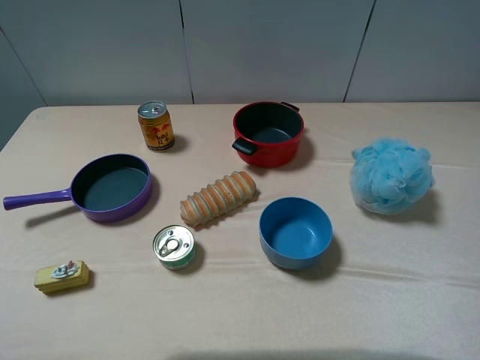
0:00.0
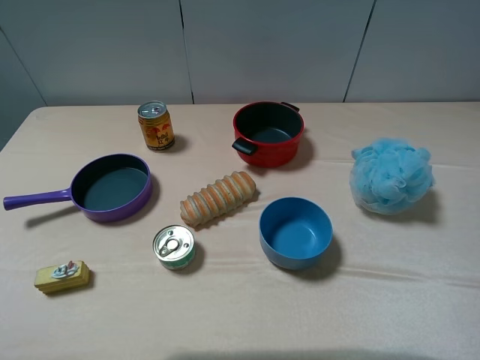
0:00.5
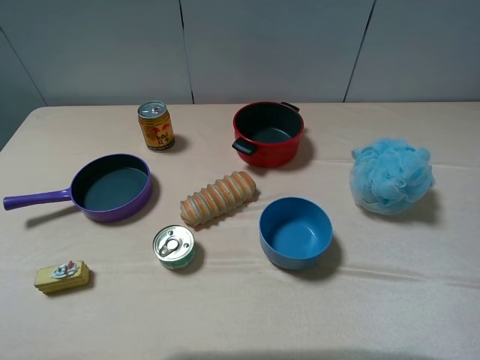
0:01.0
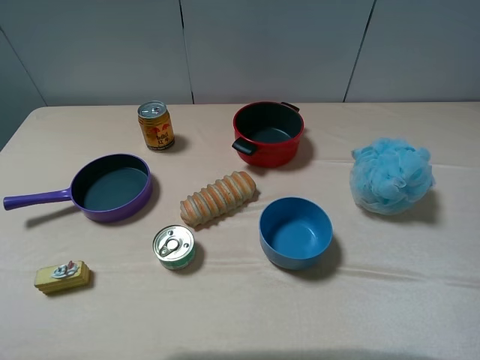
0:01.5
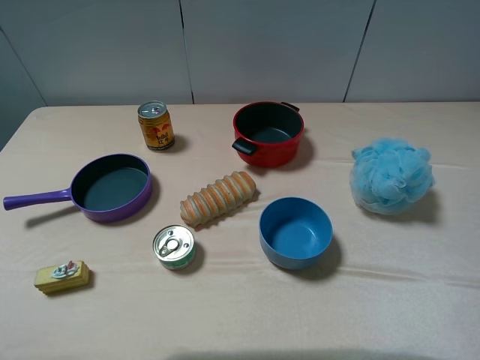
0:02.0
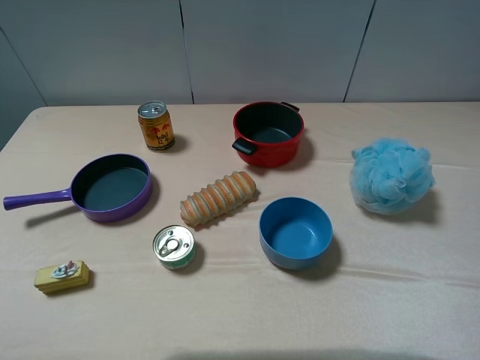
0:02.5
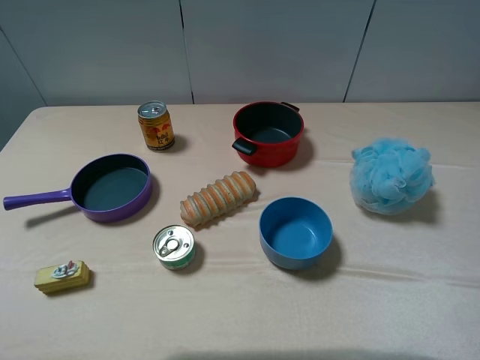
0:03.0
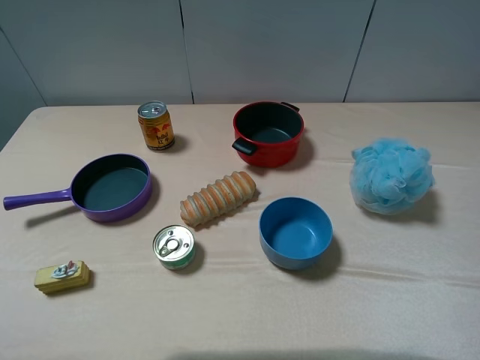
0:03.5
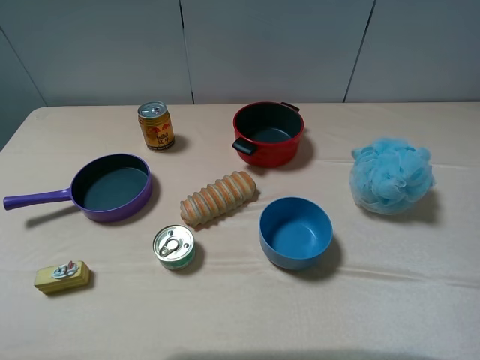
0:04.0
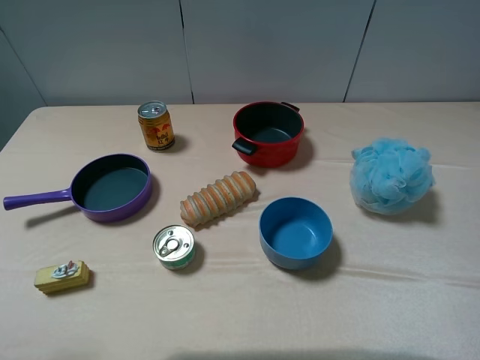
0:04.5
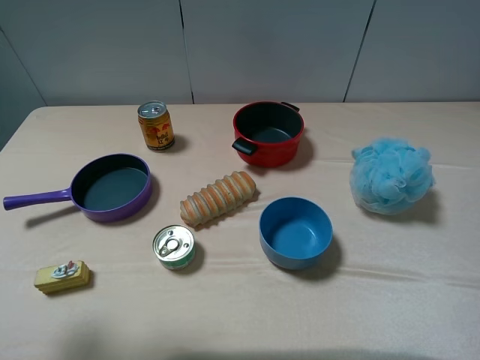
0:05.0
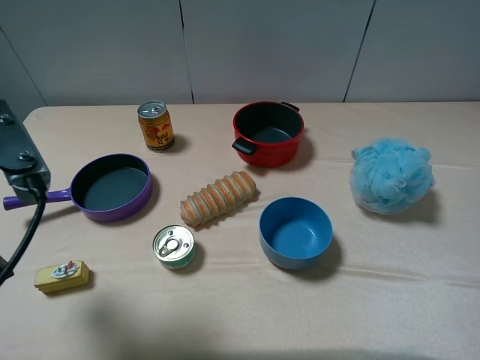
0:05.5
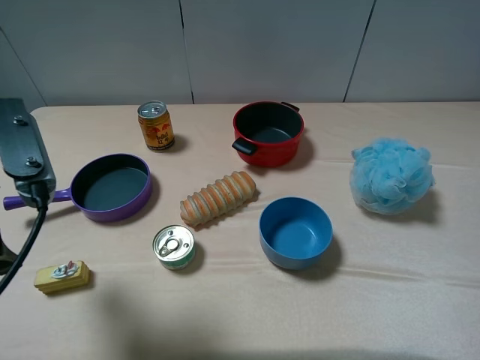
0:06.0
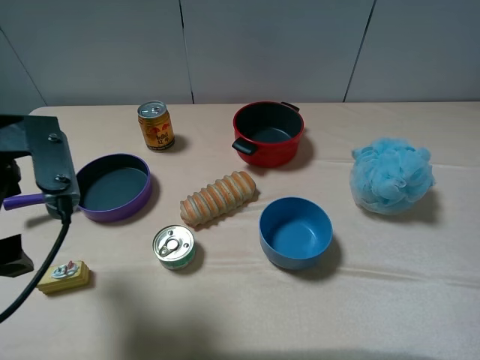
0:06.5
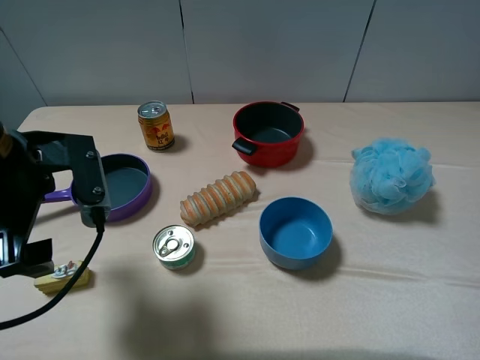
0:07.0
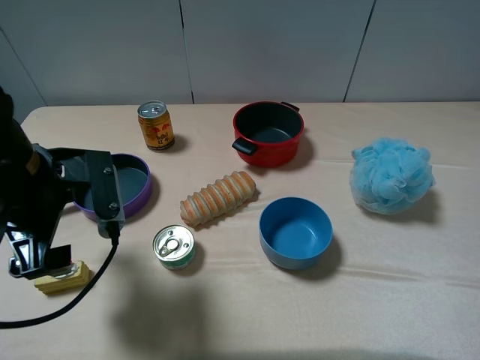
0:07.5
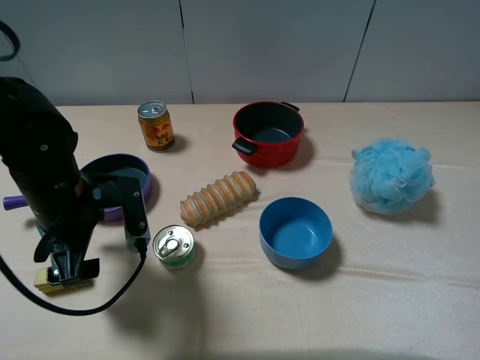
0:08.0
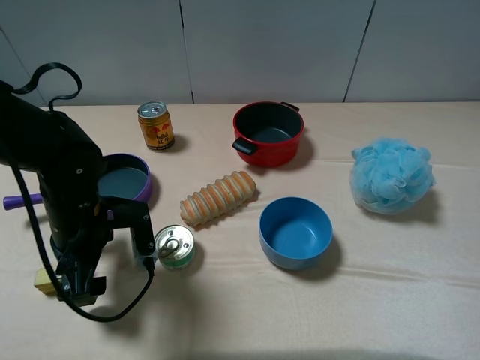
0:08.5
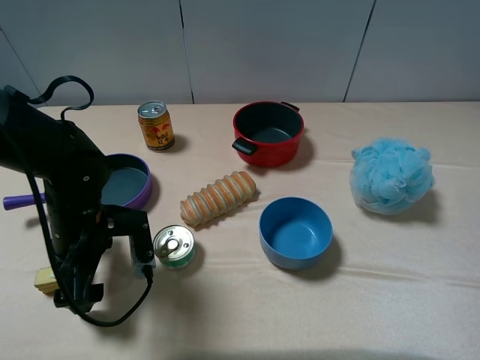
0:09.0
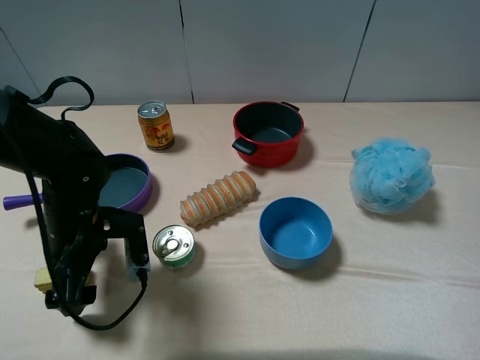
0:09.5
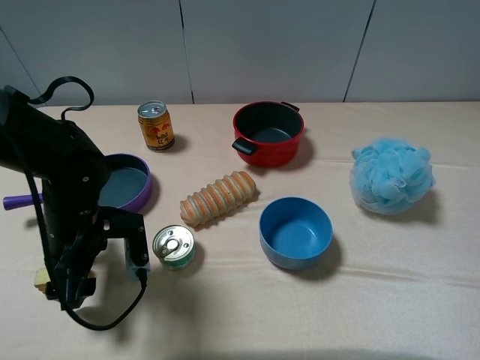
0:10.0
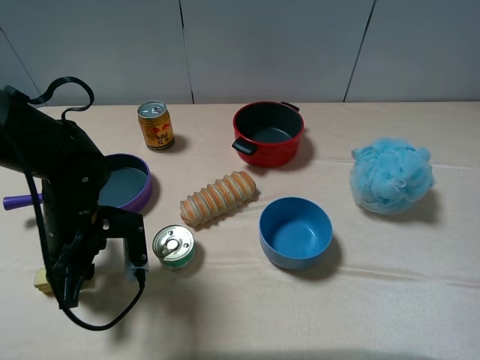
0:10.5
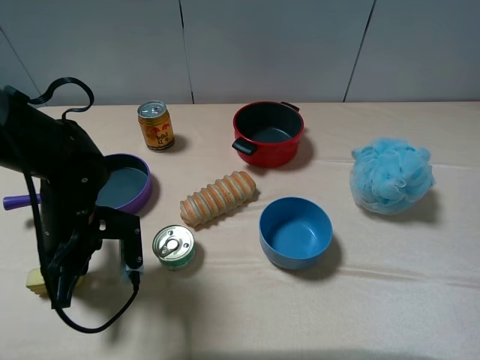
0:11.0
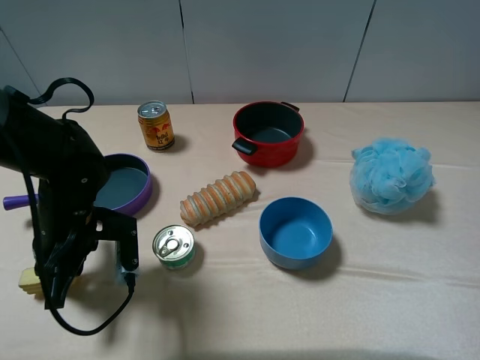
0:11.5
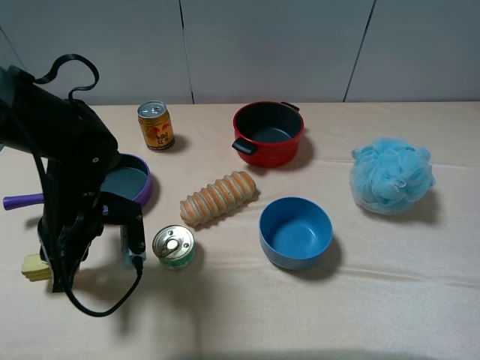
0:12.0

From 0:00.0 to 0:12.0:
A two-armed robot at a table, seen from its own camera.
Task of the whole recording: pick up an item with a gripper and place it in a random container on the table.
Step, from 0:00.0 to 0:10.5: Grasp the yellow cake with the left gripper.
From 0:00.0 to 0:04.0: The two grippers keep their place.
From 0:04.0 to 0:06.0: The left gripper goes some 15 cm forward and to the right.
From 0:06.0 to 0:08.0: The left gripper travels downward and forward by about 15 cm.
From 0:08.0 to 0:10.0: The grippers move only a little.
From 0:10.0 to 0:12.0: The left gripper closes.

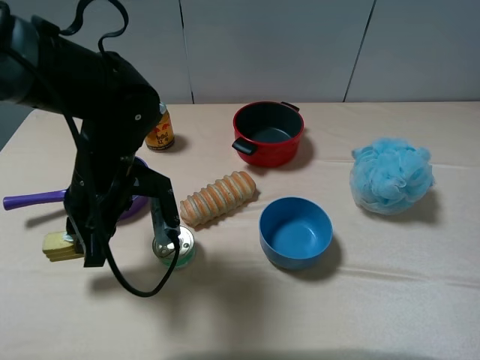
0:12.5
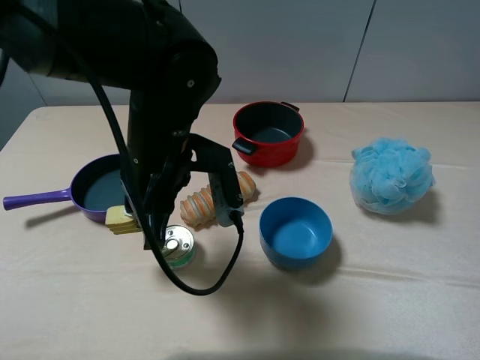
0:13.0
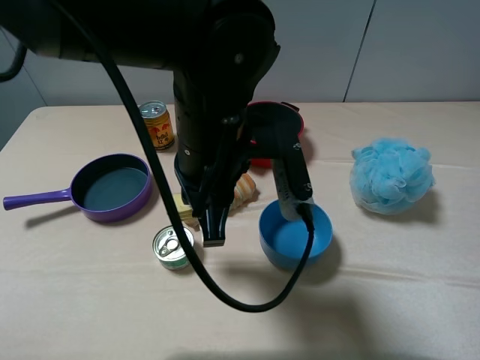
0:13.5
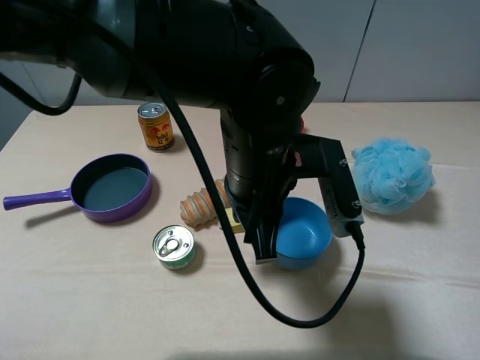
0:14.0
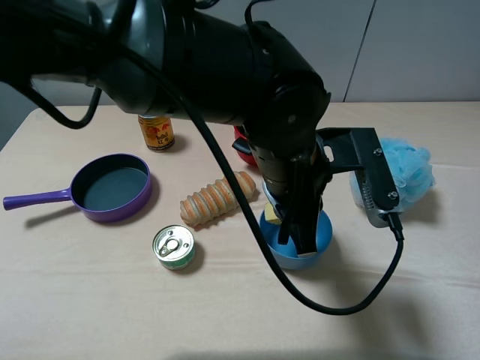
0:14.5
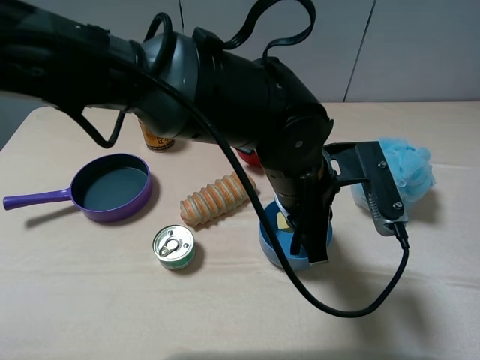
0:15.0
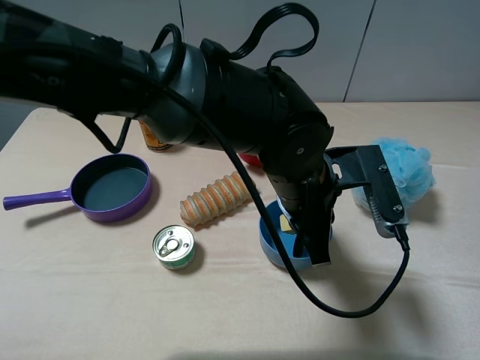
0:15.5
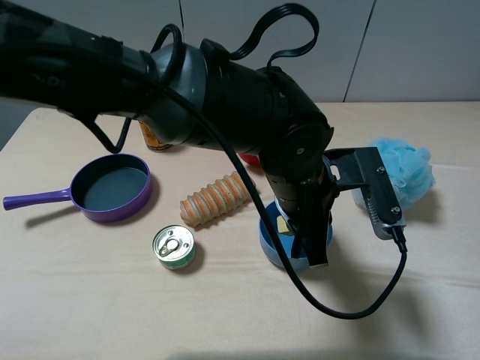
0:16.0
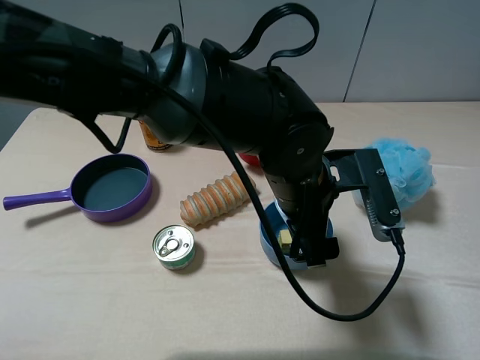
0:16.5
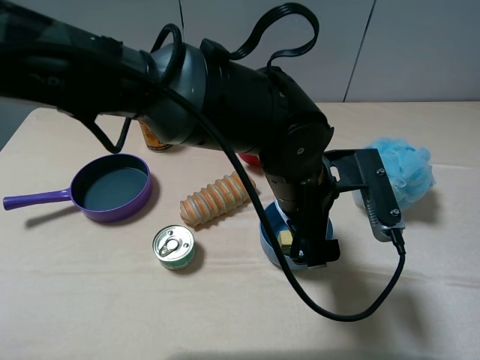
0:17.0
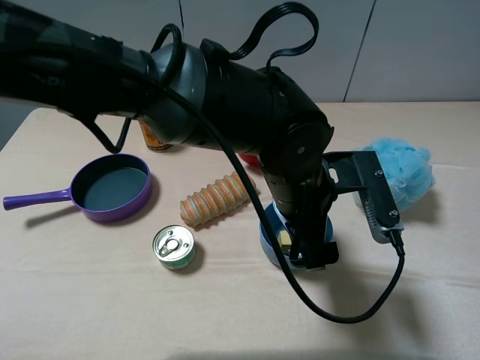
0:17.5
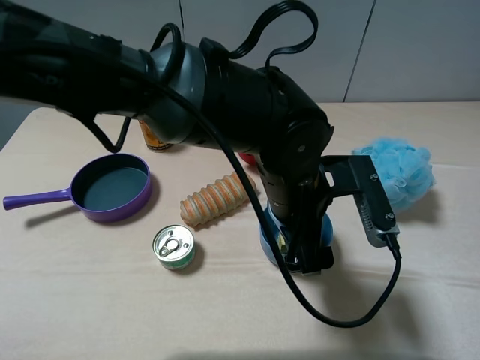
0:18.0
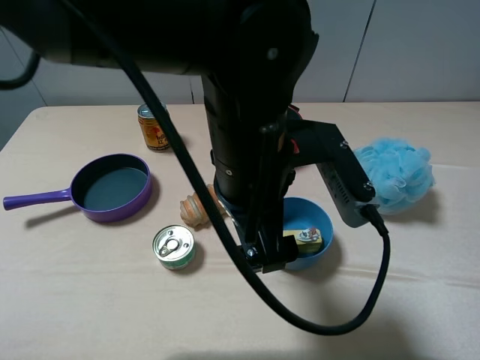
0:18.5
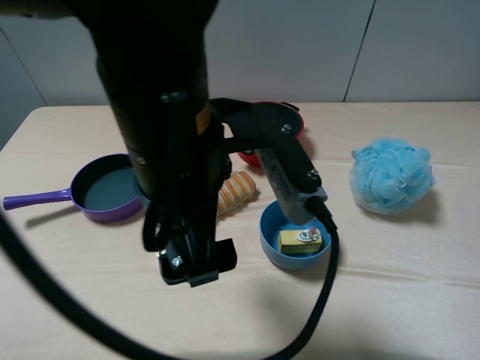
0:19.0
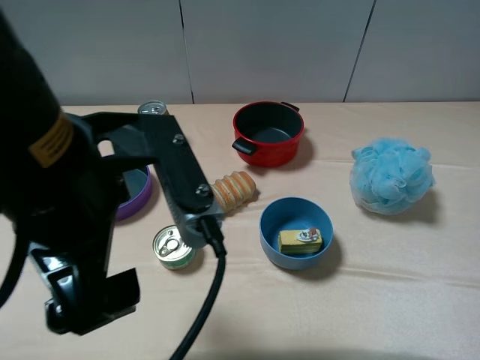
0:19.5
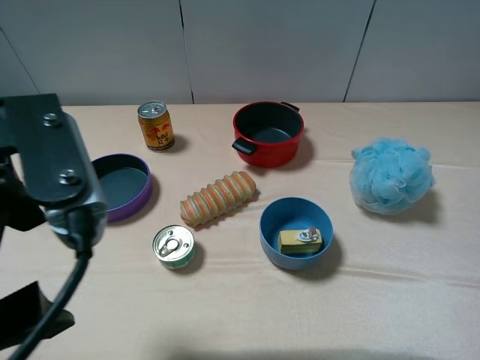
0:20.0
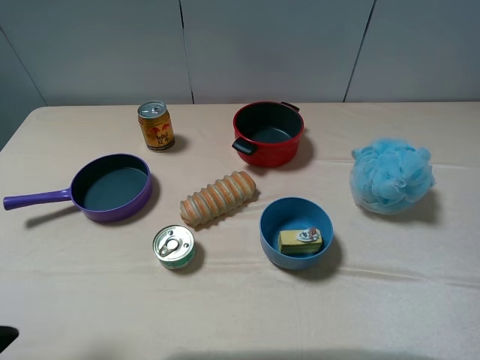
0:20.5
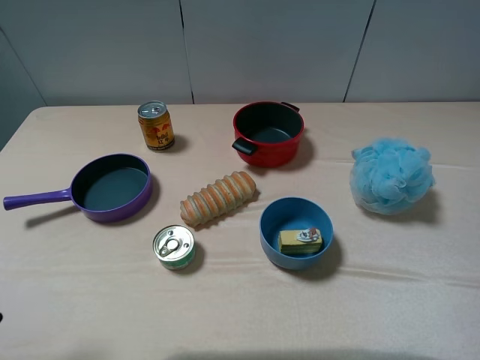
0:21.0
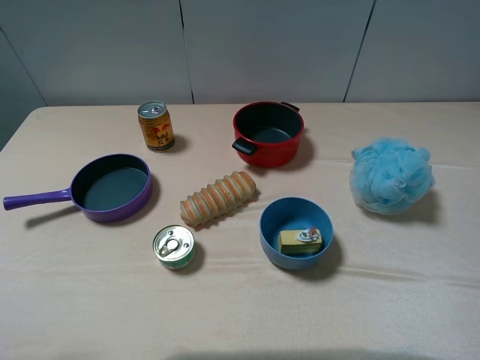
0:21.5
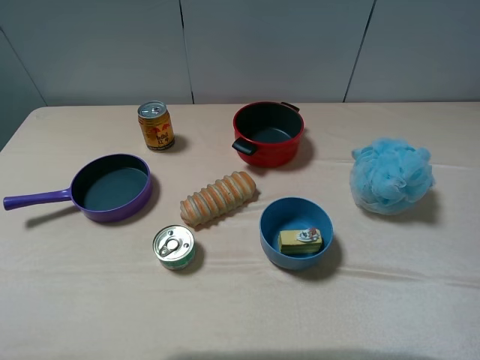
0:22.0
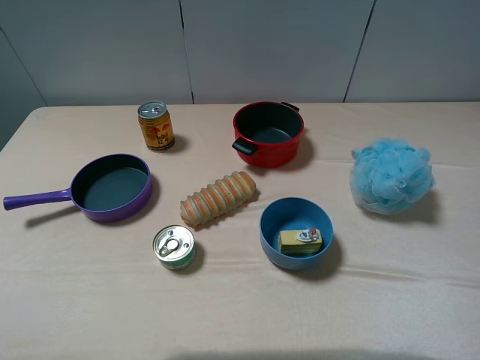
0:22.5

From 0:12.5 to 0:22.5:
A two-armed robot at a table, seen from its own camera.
Task of the whole recording: pick up an item with a gripper and place it in a random container on the table.
Step, from 0:12.5 to 0:17.0: Place the yellow cake into the blue bowl with the left gripper.
From 0:12.5 to 0:14.5: The left gripper moves to the right, roughly 20 cm.
From 0:14.5 to 0:16.5: The left gripper opens up.
From 0:16.5 to 0:18.5: The left gripper travels upward and to the left by roughly 10 cm.
From 0:18.5 to 0:20.5: The left gripper shifts about 30 cm to the left and backward.

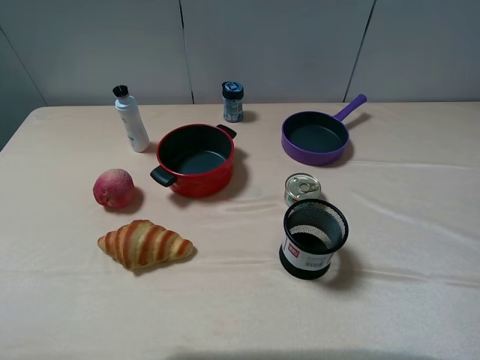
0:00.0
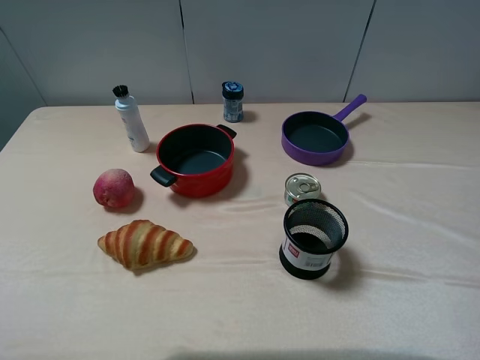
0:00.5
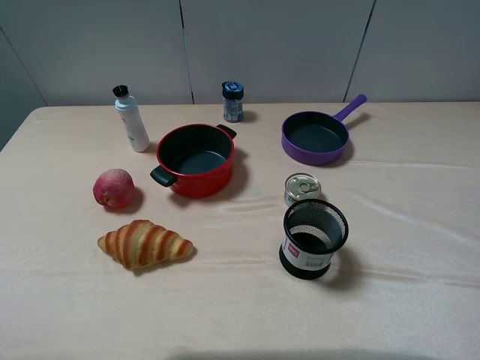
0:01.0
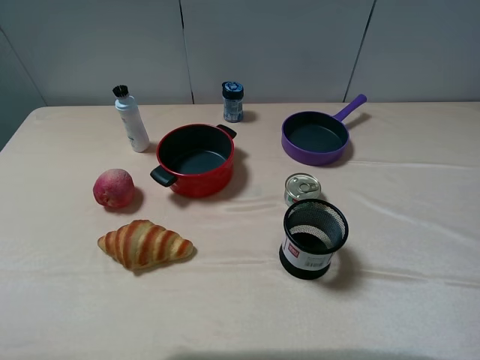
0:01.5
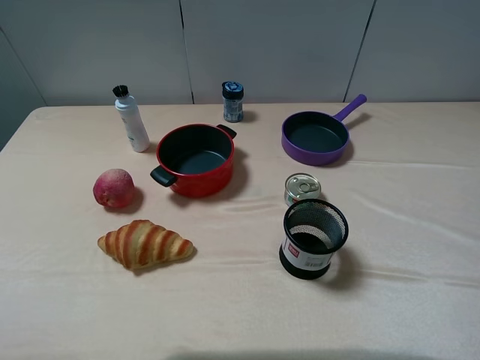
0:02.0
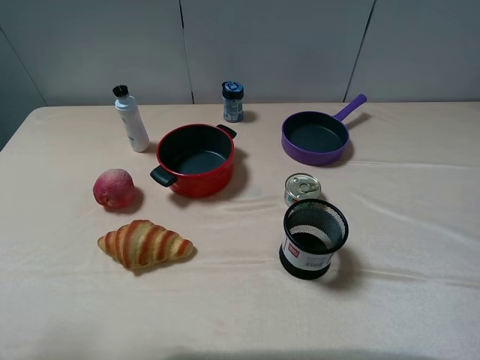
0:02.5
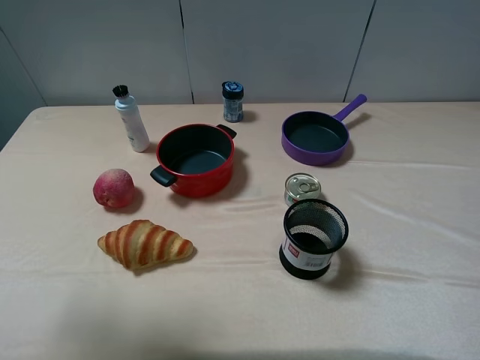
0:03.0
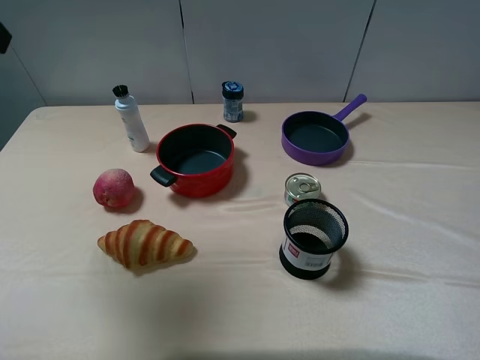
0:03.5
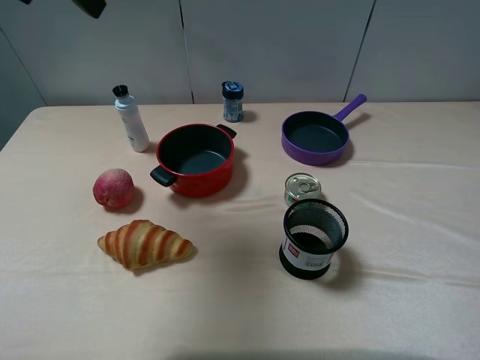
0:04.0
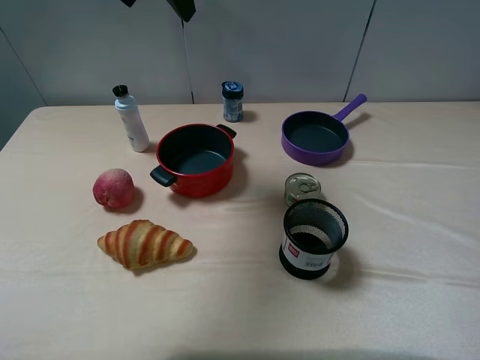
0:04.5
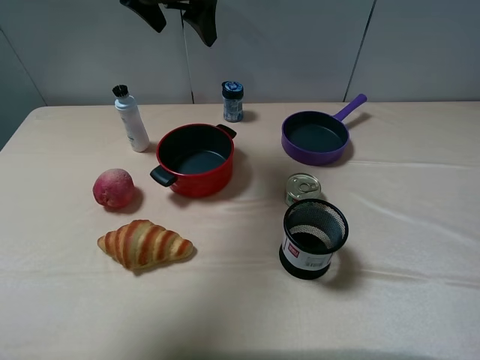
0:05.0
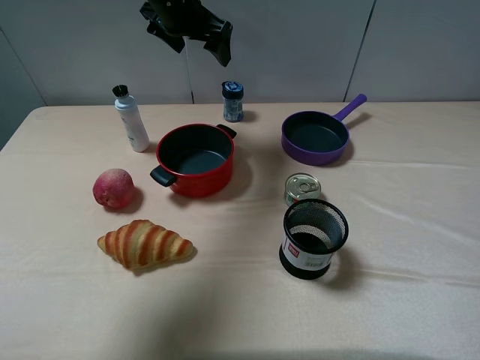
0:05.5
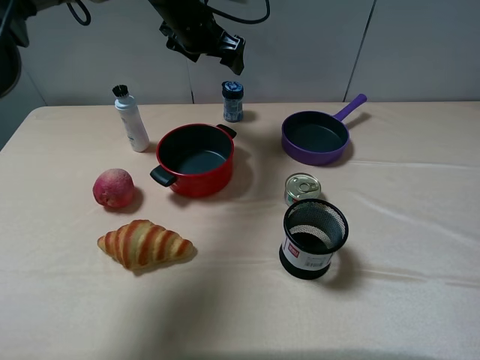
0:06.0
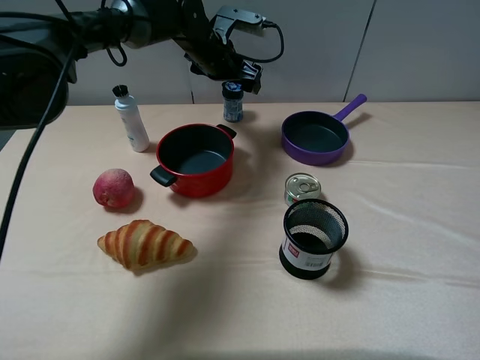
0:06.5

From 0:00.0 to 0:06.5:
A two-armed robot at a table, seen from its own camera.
Task of the whole recording: pick up an item with a gripper and place it in a random container on the table.
From 0:00.0 to 0:02.0: Neither gripper changes place.
From 0:02.0 to 0:04.5: The left gripper goes roughly 40 cm forward and to the right.
From 0:04.5 to 0:06.5: The left gripper moves downward, forward and to the right, approximately 25 cm.
